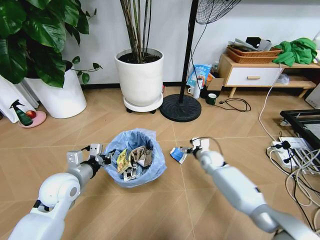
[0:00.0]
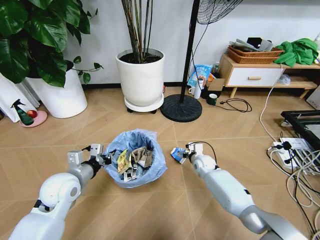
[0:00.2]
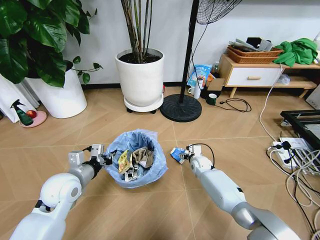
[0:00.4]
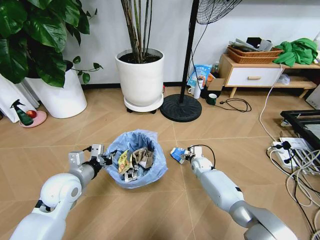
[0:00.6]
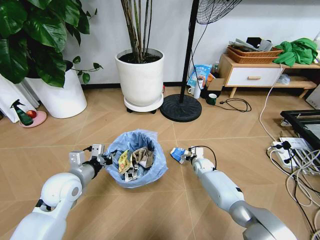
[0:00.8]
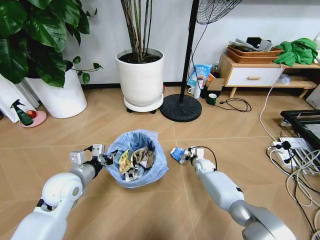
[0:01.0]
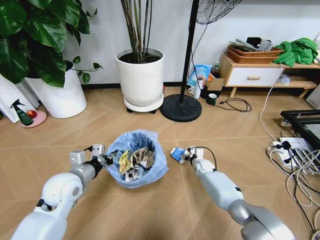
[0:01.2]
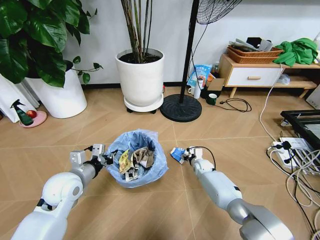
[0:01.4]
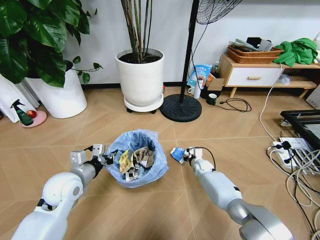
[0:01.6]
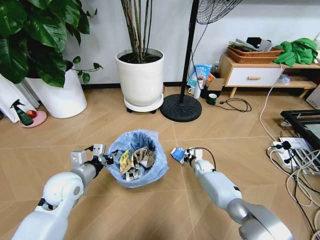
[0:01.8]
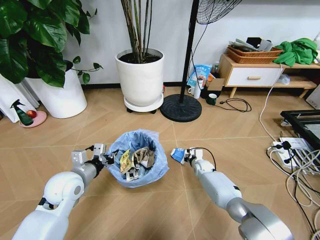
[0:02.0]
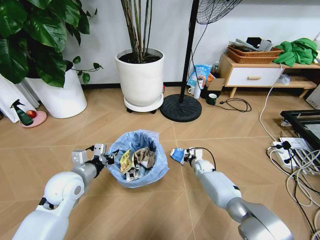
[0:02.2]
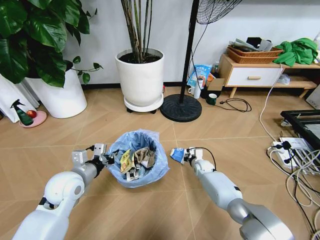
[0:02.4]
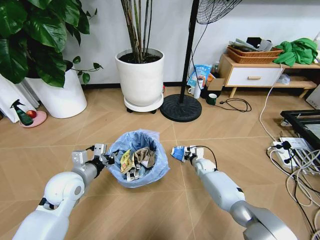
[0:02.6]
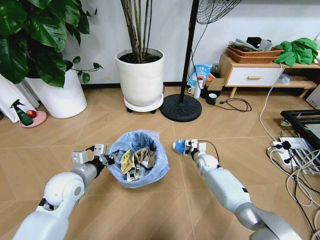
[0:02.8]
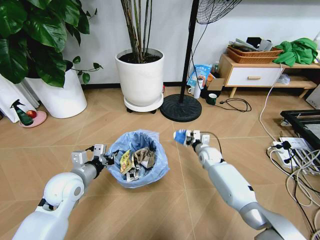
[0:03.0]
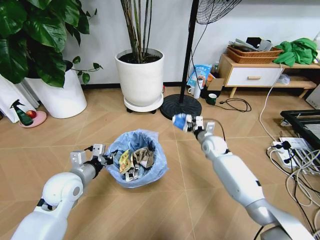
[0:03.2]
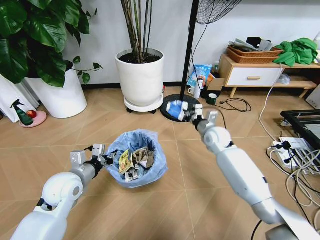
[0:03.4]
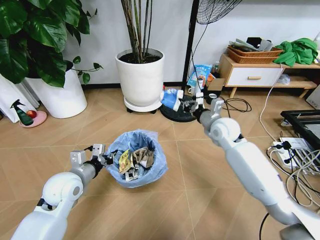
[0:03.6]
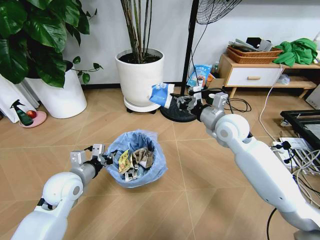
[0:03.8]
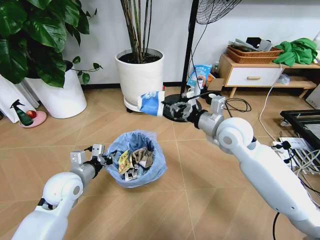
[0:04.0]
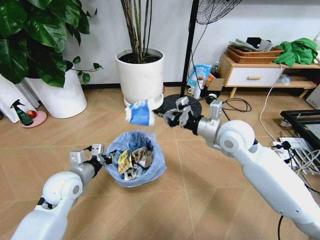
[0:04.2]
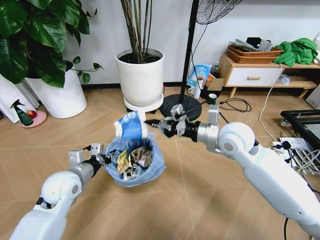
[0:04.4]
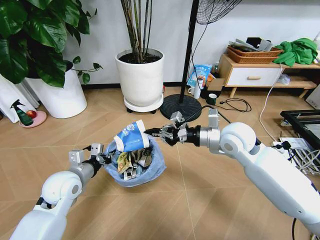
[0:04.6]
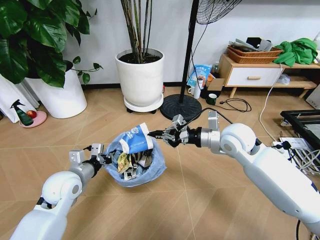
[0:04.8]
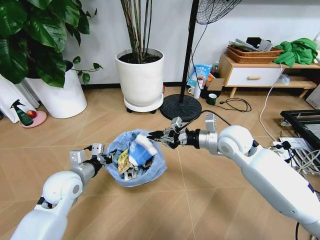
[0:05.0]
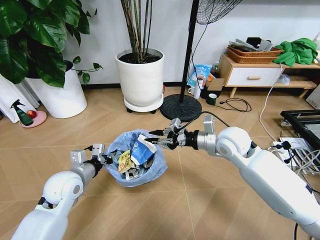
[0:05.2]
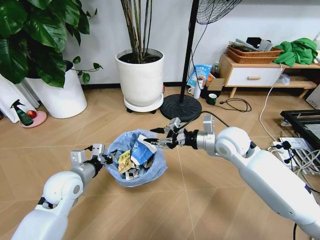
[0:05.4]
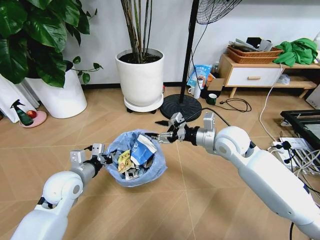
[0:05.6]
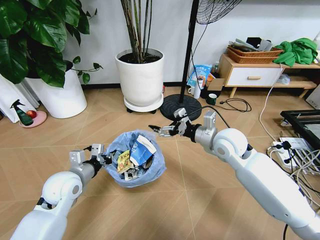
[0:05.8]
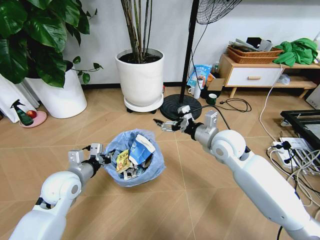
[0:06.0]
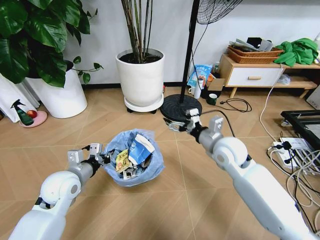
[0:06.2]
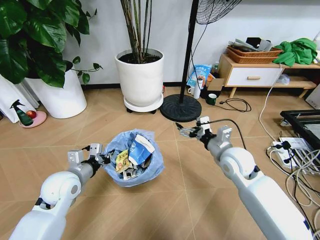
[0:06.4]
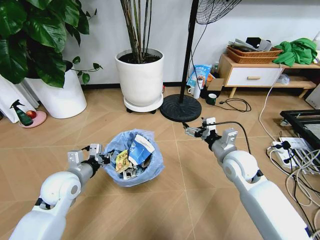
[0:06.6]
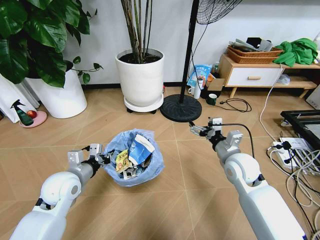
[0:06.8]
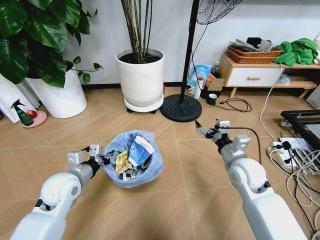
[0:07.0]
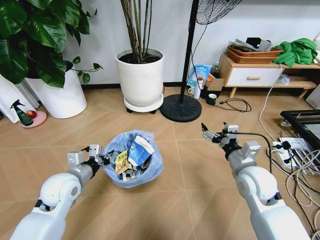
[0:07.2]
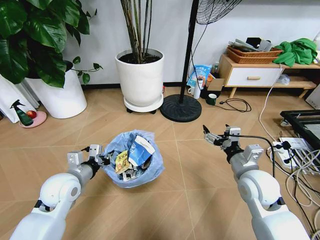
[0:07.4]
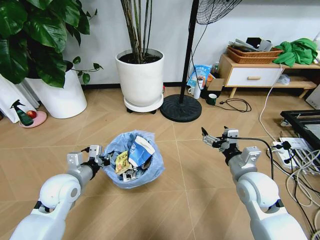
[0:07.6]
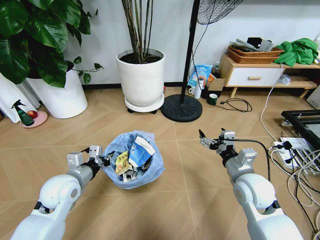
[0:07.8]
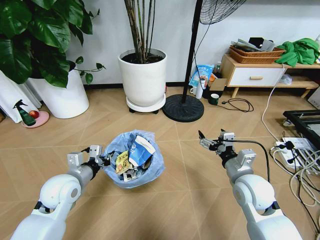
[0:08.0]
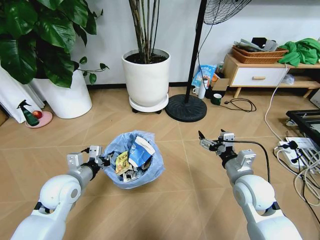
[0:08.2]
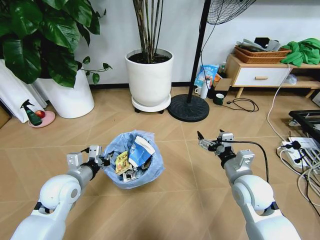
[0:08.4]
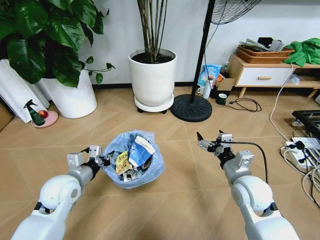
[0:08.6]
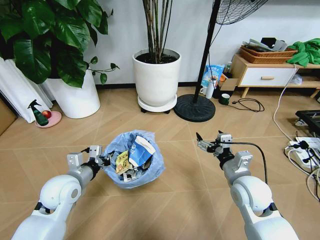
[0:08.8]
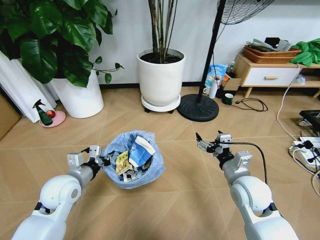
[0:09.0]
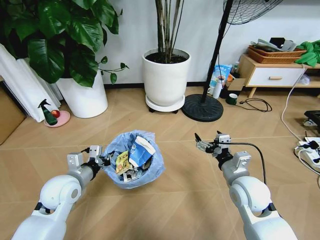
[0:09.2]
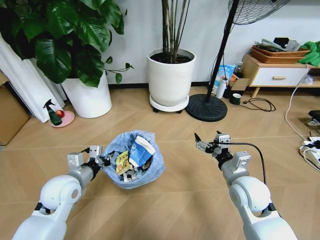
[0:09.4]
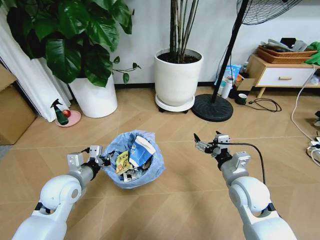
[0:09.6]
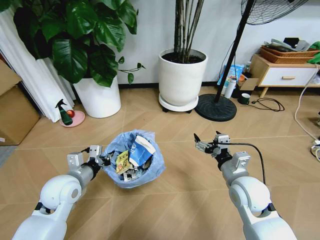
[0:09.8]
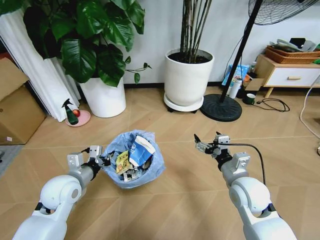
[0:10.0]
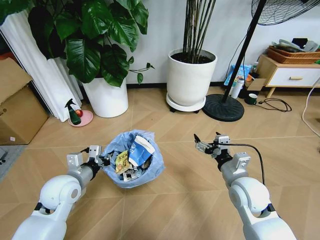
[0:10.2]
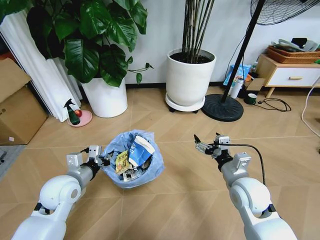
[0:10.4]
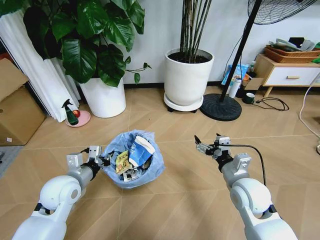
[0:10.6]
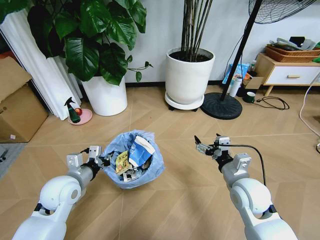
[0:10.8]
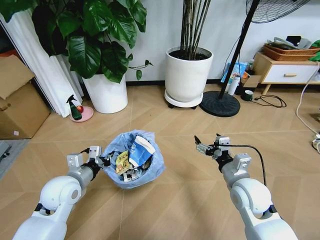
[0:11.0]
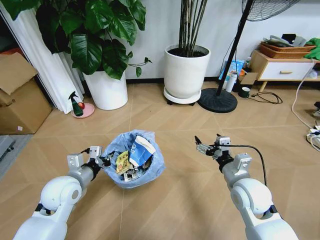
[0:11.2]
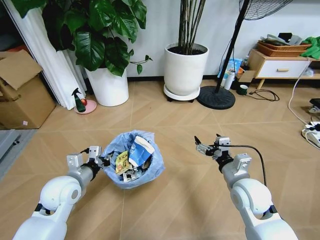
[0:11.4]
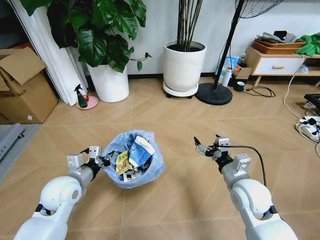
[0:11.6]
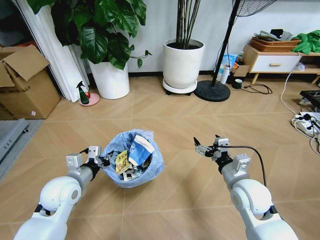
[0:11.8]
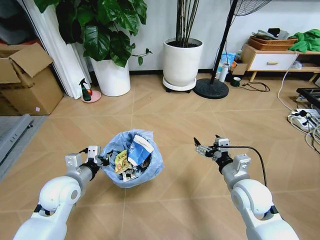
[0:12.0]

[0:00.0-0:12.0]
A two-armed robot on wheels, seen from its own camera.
Task of the whole recording: Pick up the trash bin and place the garbage on the floor into it.
0:00.0 to 0:01.6: The right gripper moves downward, approximately 10 cm, and closes up.
0:01.6 to 0:03.0: The right gripper goes some 10 cm upward, and closes up.
0:03.0 to 0:04.4: The right gripper travels upward and backward by roughly 30 cm.
0:04.4 to 0:06.0: The right gripper opens up.
0:06.0 to 0:07.6: The right gripper heads backward, to the right and downward, covering approximately 15 cm.

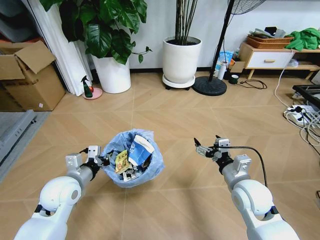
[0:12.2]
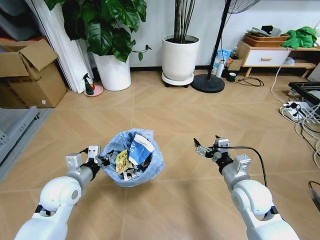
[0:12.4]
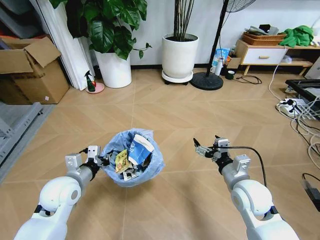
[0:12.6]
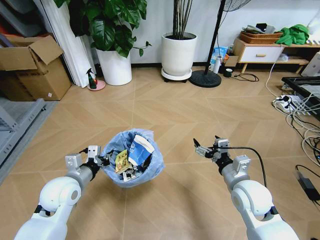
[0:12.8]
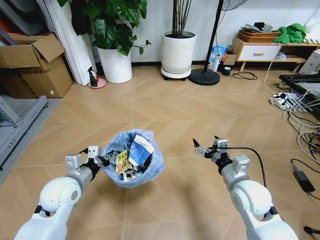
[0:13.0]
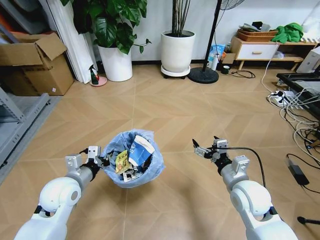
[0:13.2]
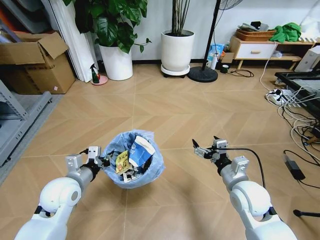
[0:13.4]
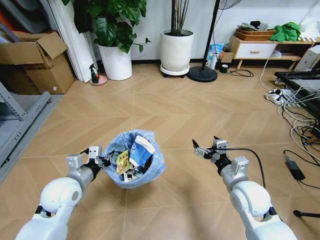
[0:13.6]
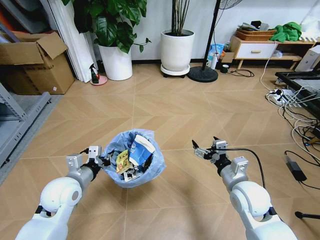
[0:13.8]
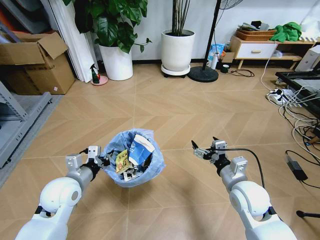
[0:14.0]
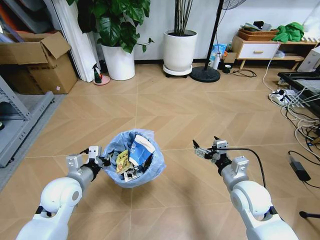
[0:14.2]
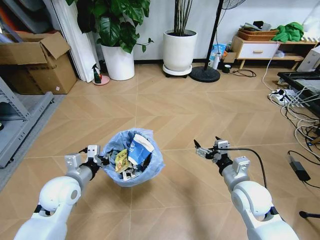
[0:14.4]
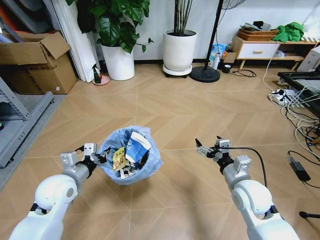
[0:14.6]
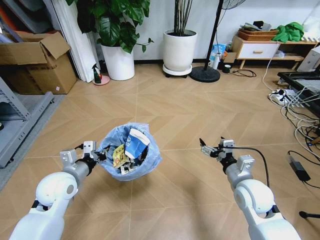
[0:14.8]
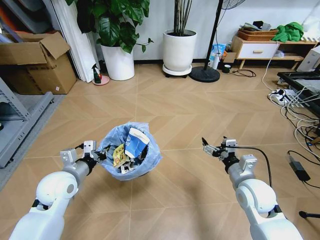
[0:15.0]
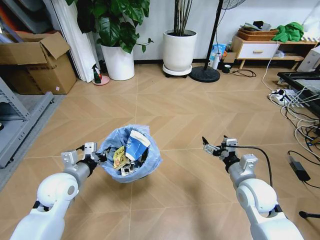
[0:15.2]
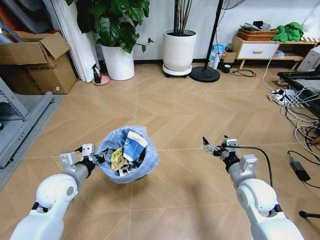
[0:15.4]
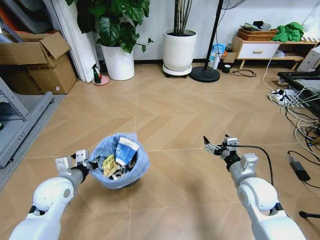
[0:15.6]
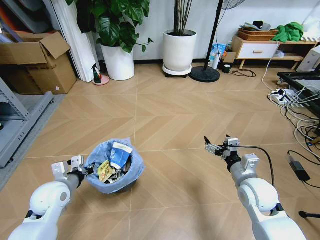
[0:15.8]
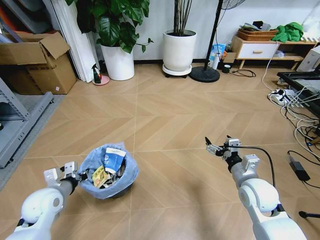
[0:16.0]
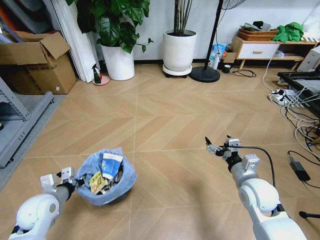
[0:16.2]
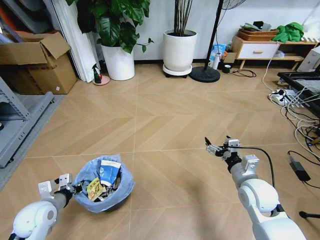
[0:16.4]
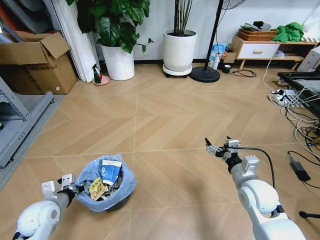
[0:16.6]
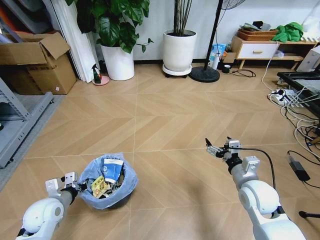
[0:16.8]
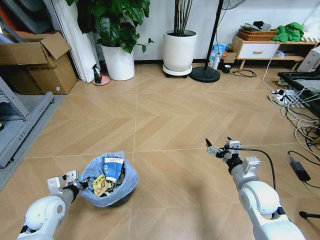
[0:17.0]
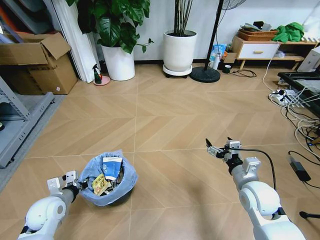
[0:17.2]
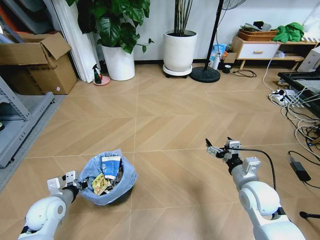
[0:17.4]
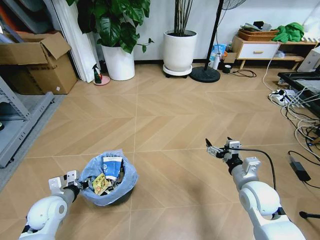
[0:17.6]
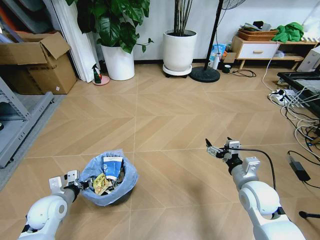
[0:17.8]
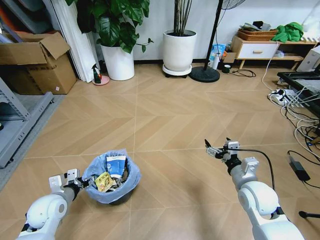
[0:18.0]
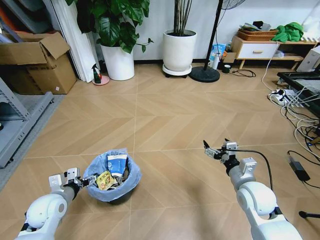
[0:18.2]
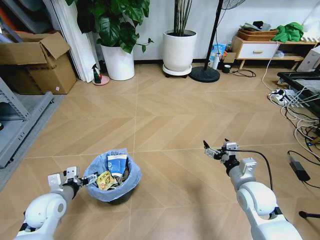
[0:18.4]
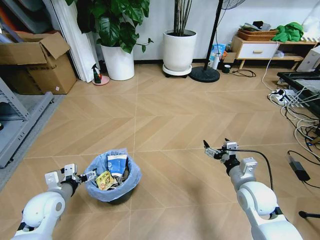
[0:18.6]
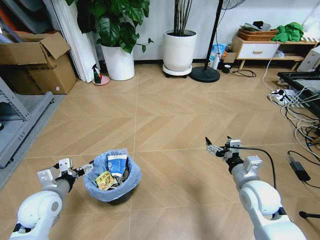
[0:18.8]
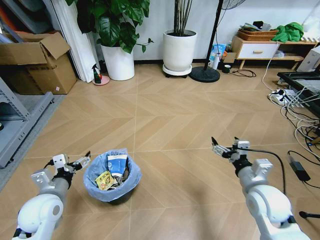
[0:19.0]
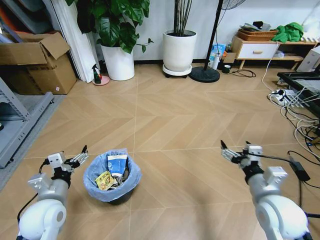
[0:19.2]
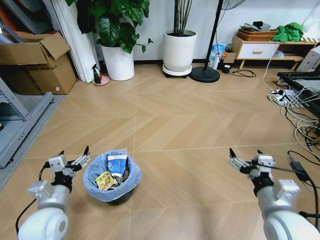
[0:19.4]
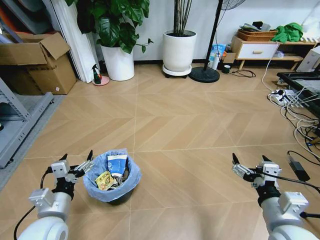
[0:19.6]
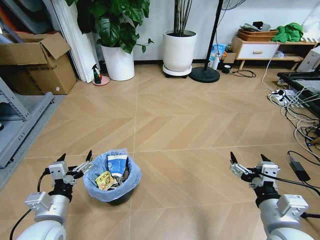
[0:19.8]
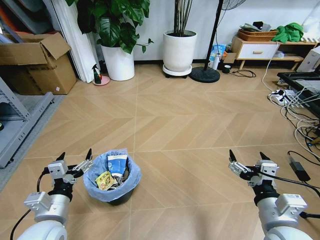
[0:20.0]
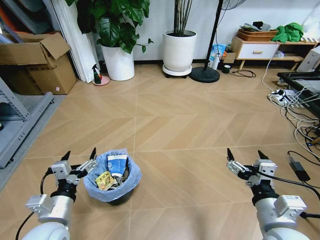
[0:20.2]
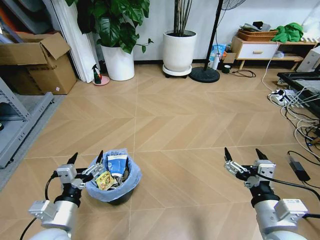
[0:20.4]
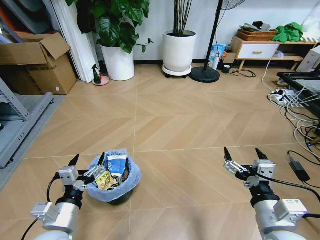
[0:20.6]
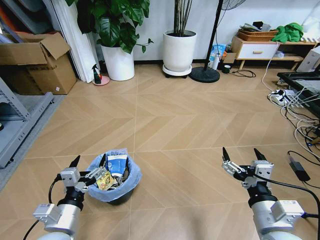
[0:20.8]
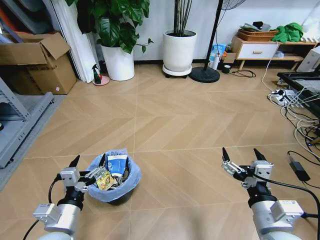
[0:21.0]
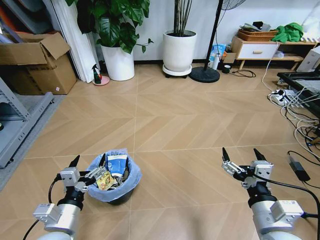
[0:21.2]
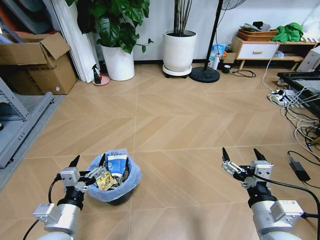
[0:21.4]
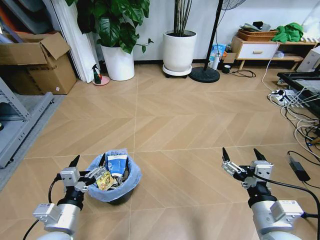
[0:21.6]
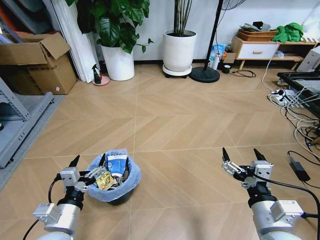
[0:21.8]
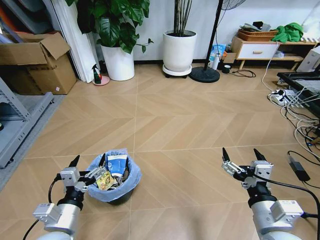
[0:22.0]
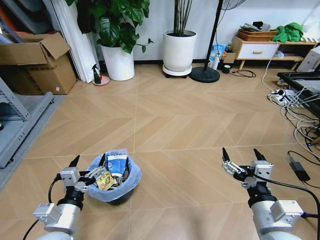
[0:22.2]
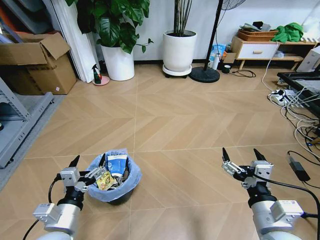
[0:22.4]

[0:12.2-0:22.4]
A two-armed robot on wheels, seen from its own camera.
Task of the whole recording: Pick up the trash bin and place the garbage on the floor into it.
0:15.2 to 0:16.6: The left gripper travels downward and to the left by about 10 cm.
0:16.6 to 0:18.0: The left gripper opens up.
0:18.0 to 0:19.4: The left gripper is displaced backward, upward and to the right by some 10 cm, and opens up. Meanwhile the right gripper heads backward and upward, covering about 10 cm.
0:19.4 to 0:21.0: The left gripper is displaced backward by about 5 cm. Meanwhile the right gripper shifts by roughly 5 cm.
0:21.0 to 0:22.4: Neither gripper changes place.
